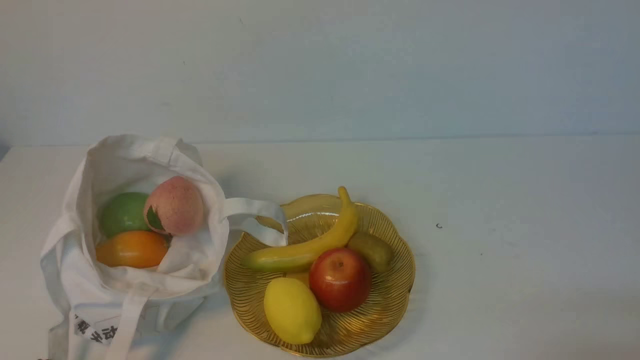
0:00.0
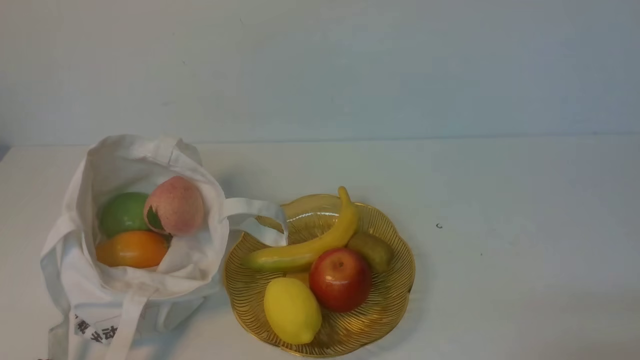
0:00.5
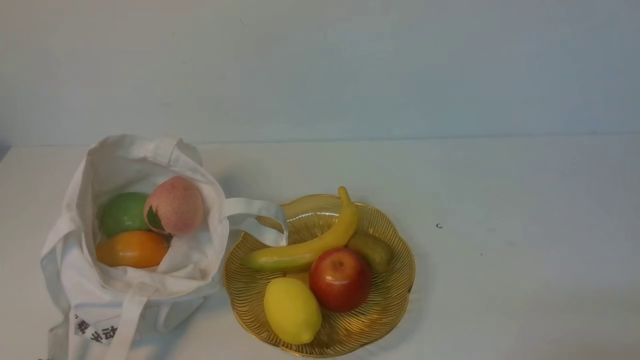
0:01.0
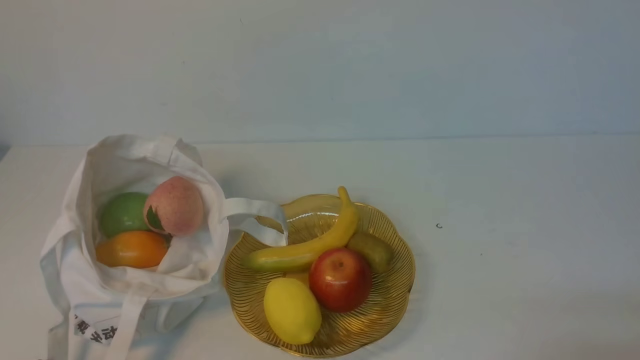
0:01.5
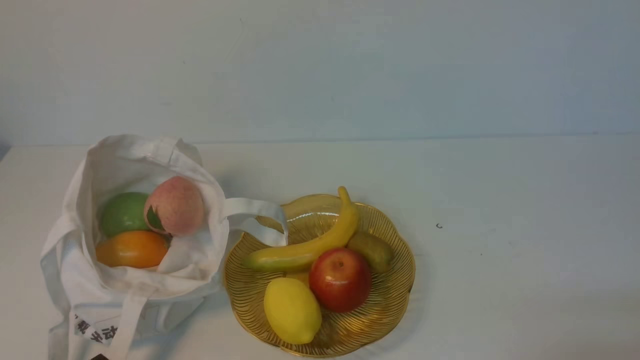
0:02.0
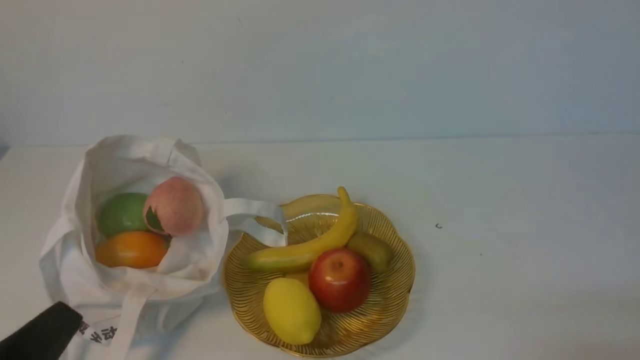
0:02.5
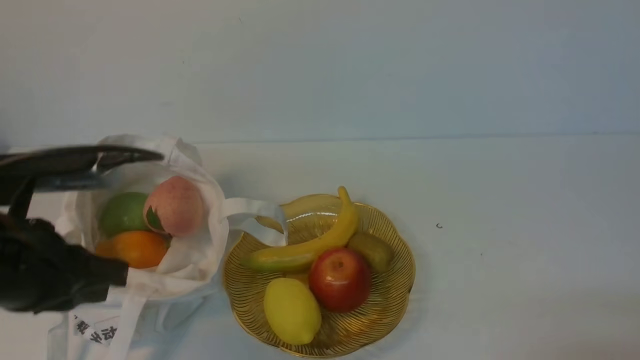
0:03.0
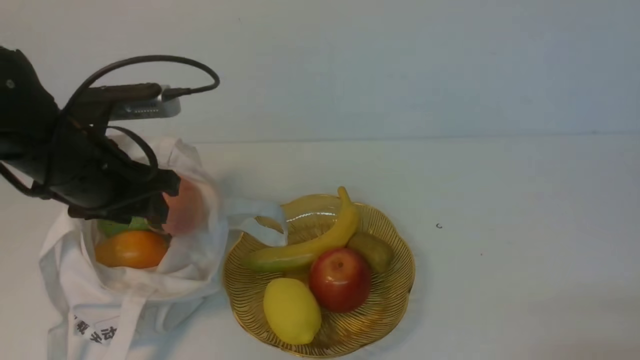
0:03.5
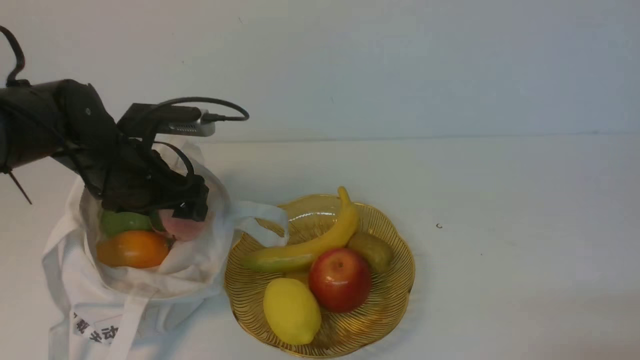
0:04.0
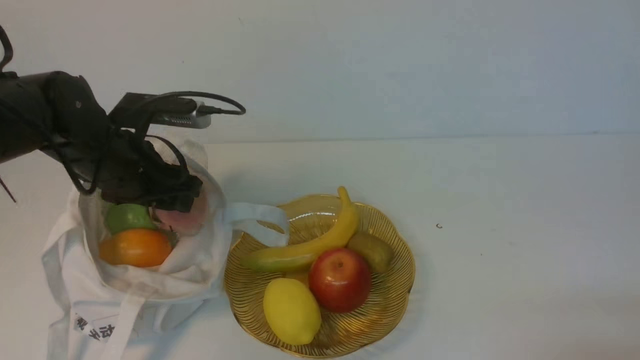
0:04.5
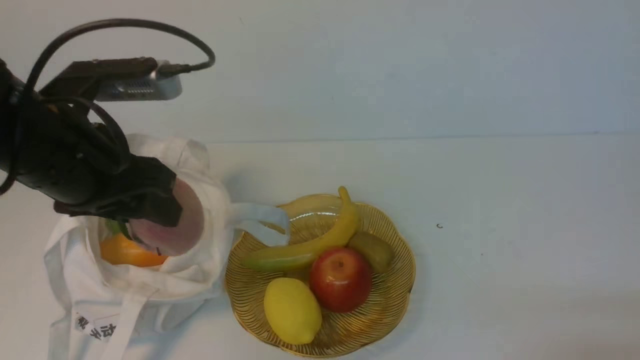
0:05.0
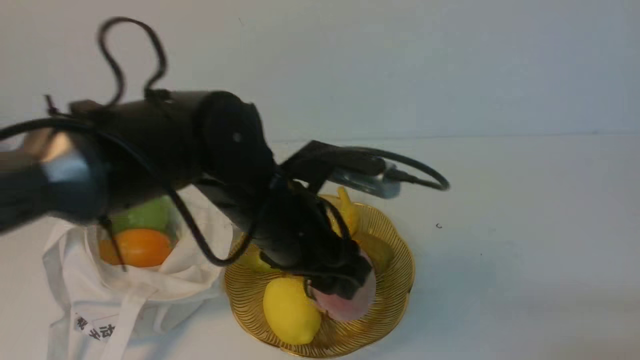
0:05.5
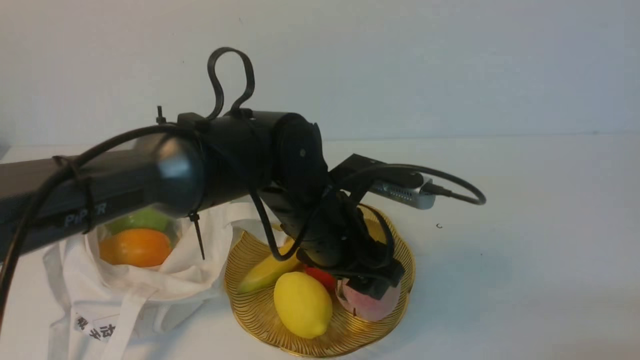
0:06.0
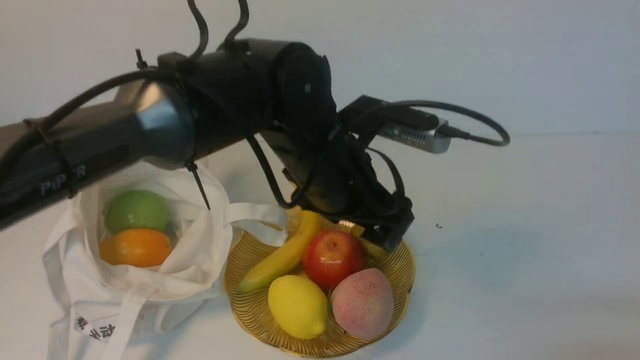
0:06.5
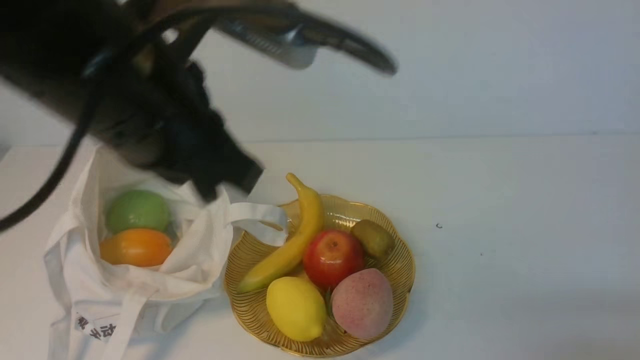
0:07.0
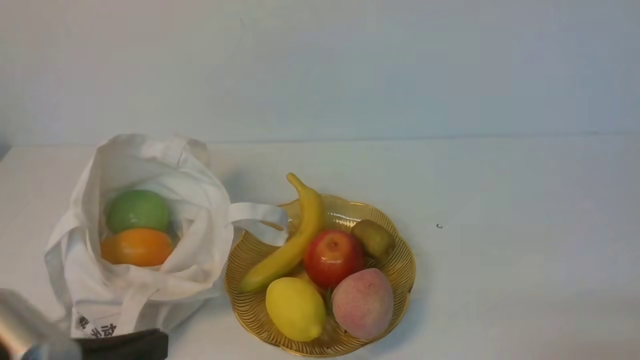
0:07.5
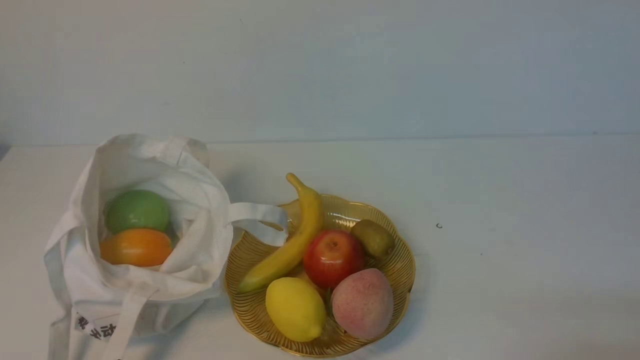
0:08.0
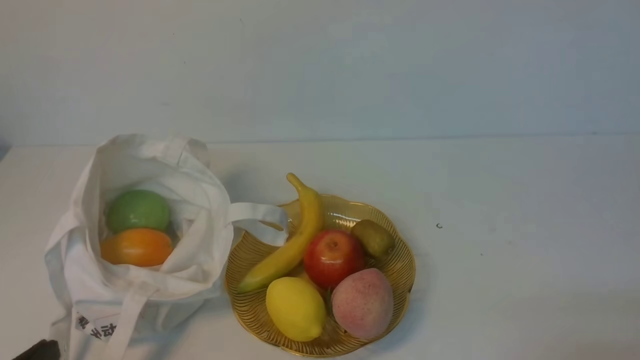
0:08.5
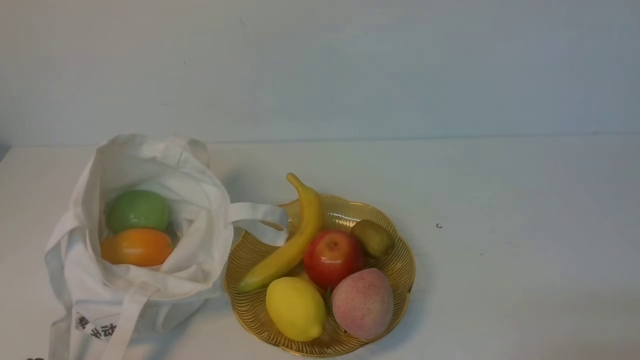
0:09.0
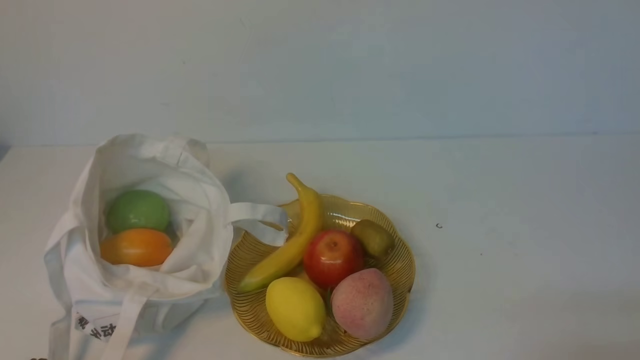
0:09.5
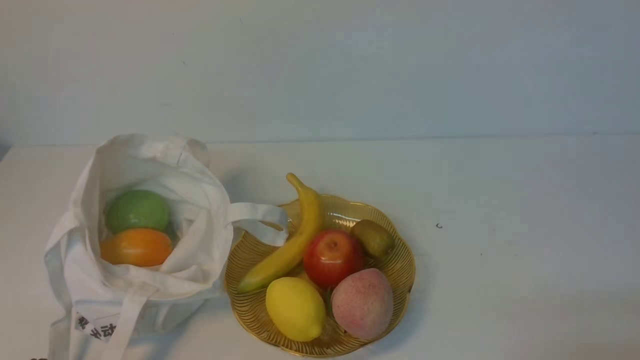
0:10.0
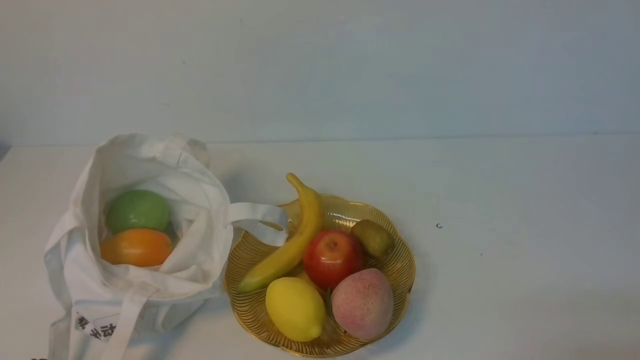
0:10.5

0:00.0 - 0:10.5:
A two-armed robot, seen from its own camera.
Step, 0:00.0 - 0:04.5: use the left arm to grab a peach from the bag.
Step, 0:05.0 - 0:06.0: use the left arm to put the peach into the empty plate on the right.
0:02.0 - 0:04.0: The left gripper shifts some 30 cm forward, and opens up.
0:04.0 - 0:06.5: The left gripper is displaced to the right by approximately 20 cm.
0:06.5 - 0:08.5: The left gripper shifts approximately 35 cm backward, to the left and downward, and closes up.

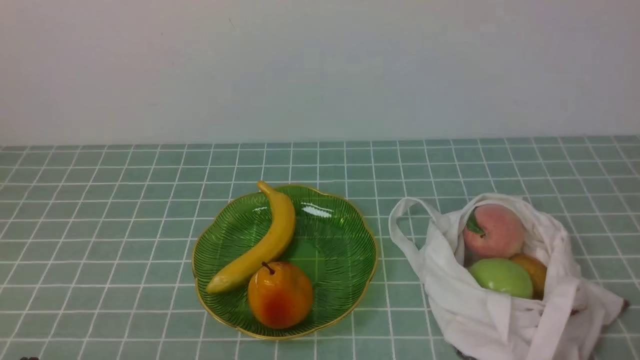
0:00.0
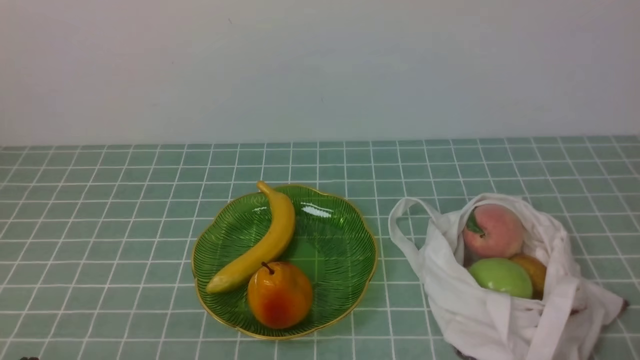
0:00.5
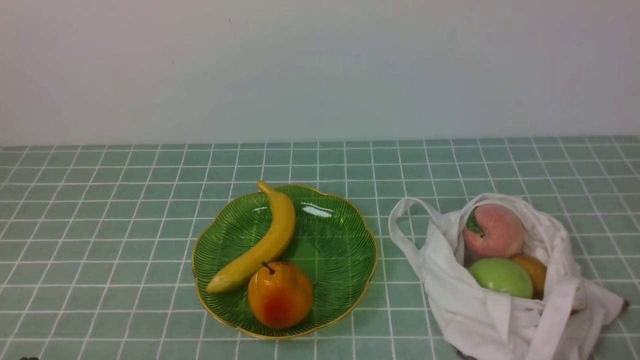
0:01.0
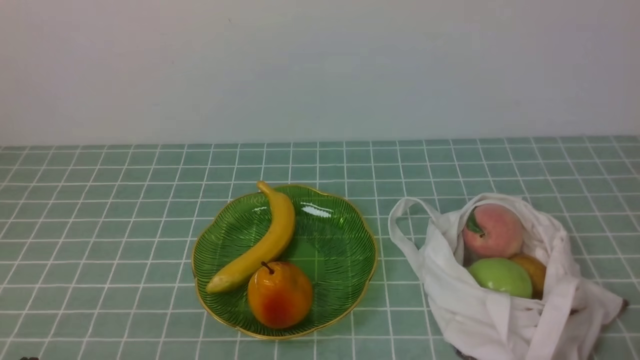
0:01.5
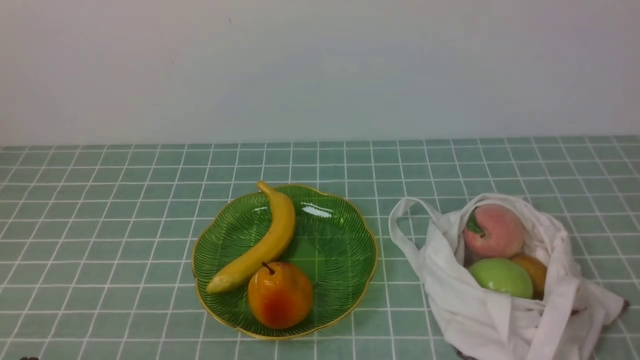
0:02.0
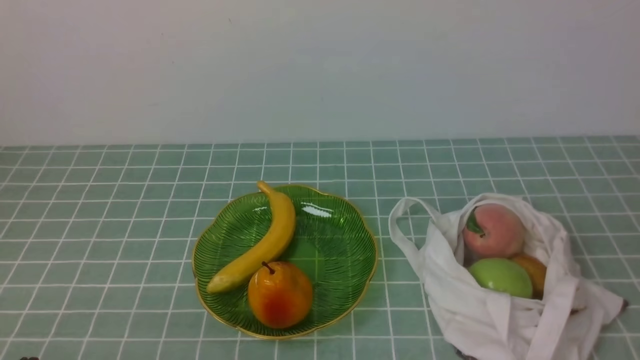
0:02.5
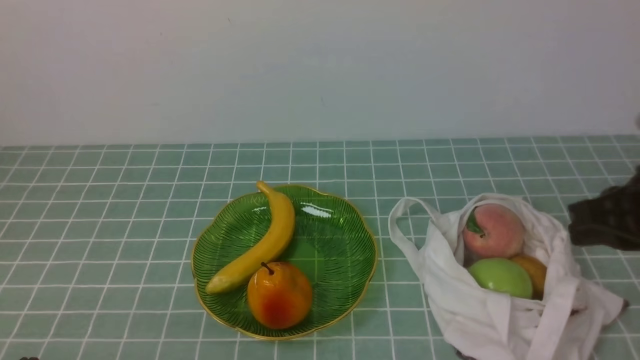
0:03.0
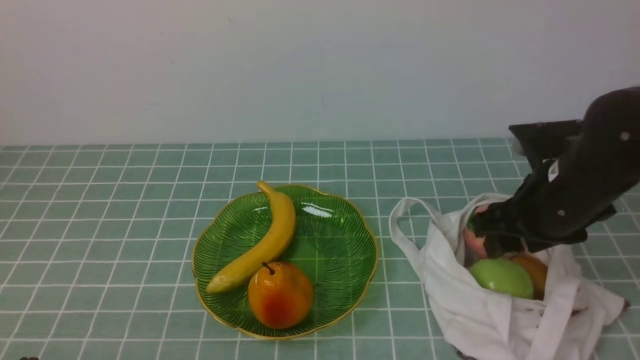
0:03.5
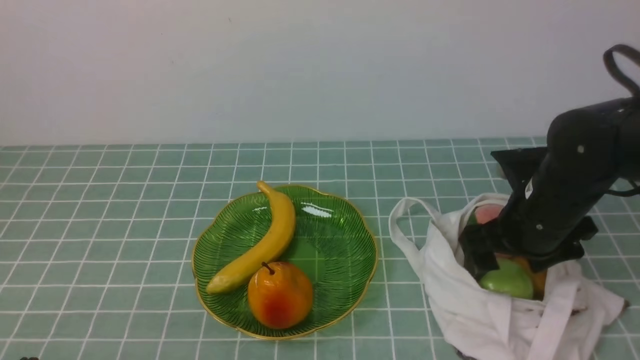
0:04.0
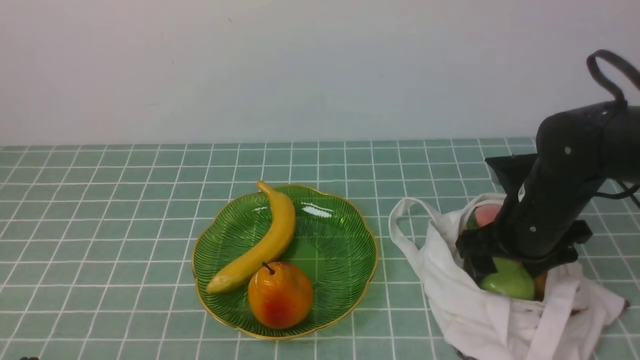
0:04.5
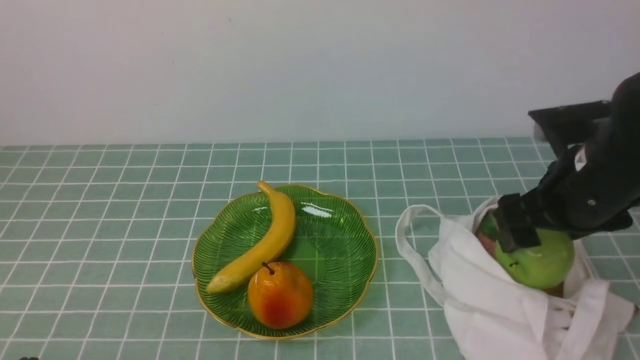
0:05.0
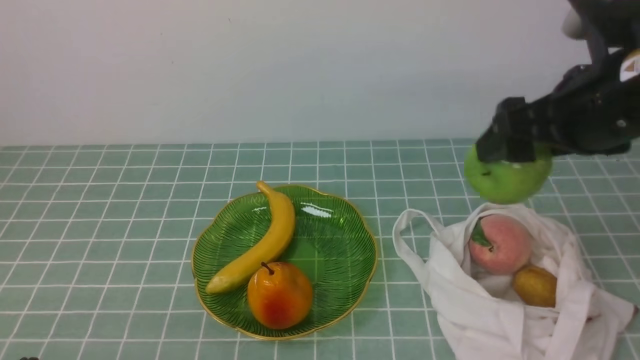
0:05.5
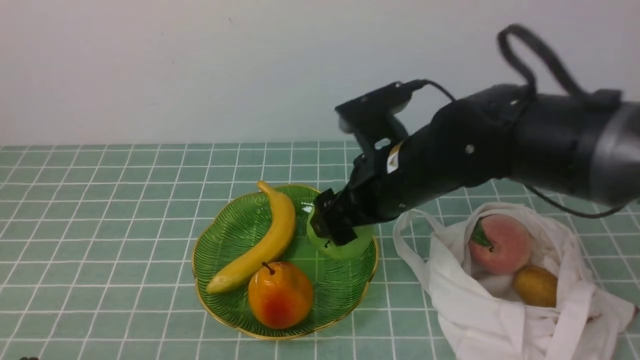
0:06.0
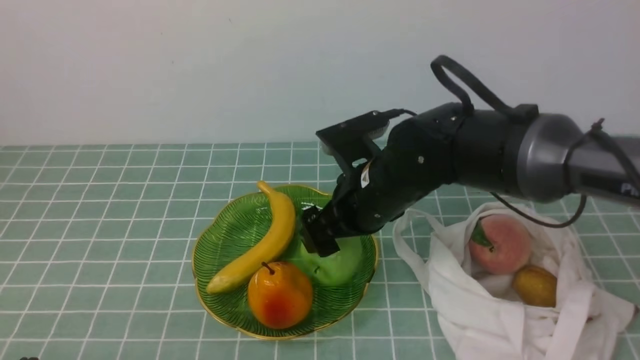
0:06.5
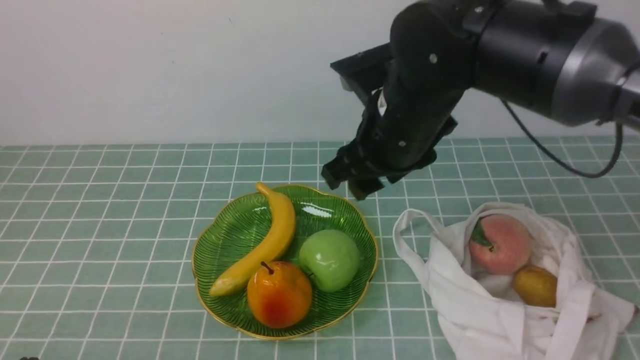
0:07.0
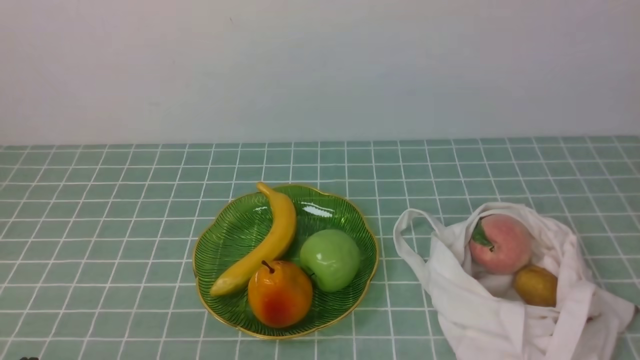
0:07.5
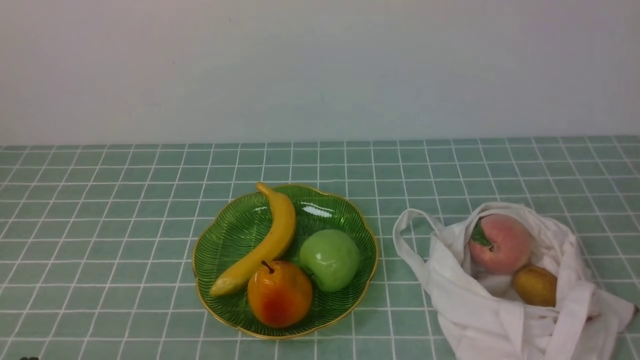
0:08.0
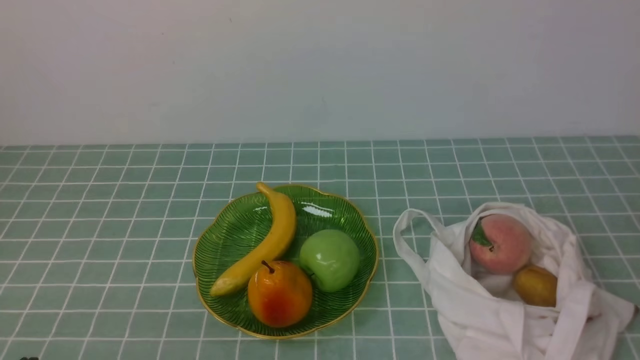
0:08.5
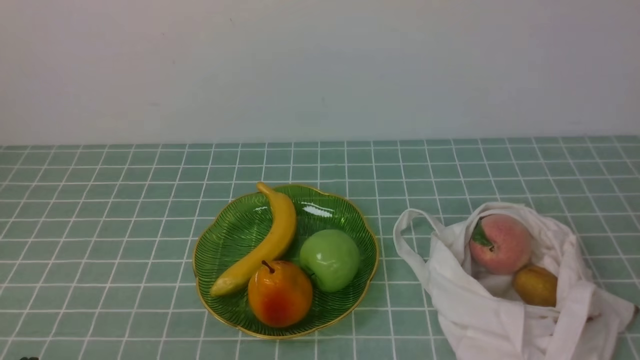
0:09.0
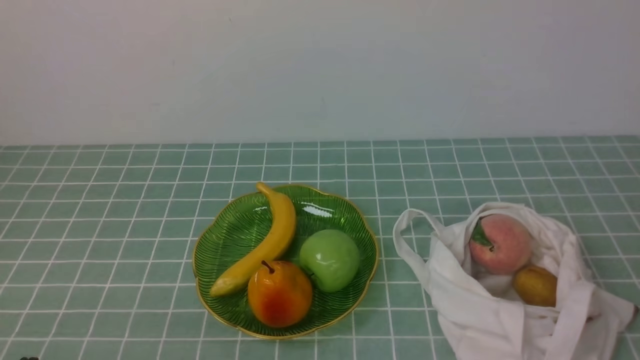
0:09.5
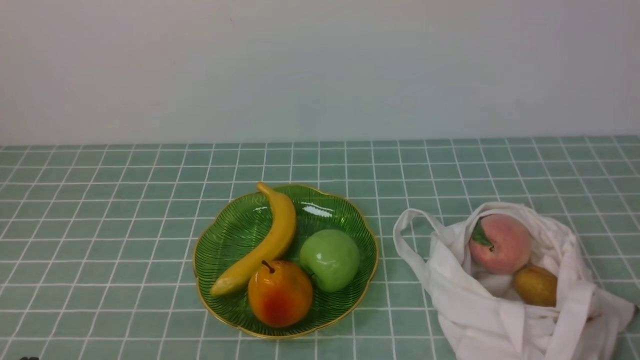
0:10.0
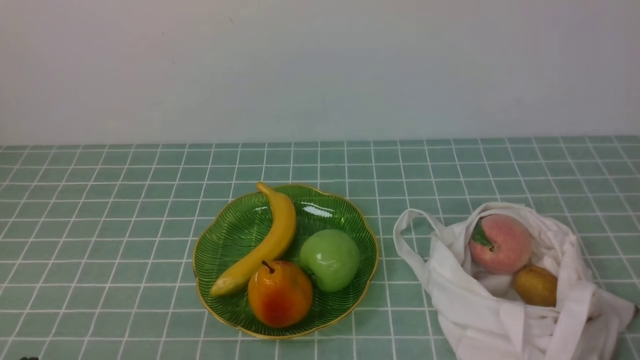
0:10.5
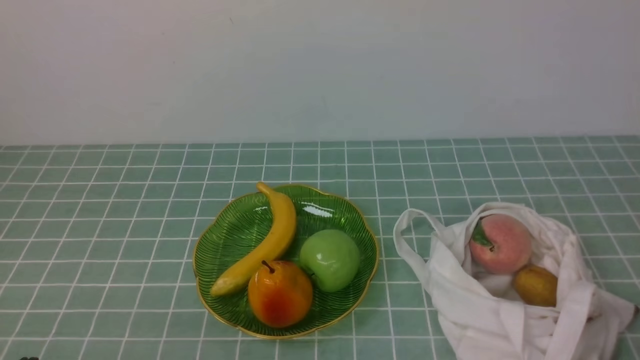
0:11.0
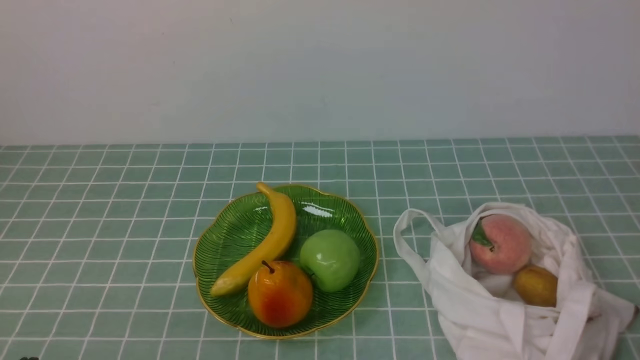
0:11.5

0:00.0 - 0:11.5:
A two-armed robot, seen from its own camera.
Step, 0:00.0 - 0:04.5: use the right arm to grab an apple from the bag.
Step, 0:05.0 - 0:06.5: use the right arm to put the apple into the empty plate on the left.
0:02.0 - 0:04.0: The right gripper moves forward, approximately 25 cm, and opens up.
0:04.0 - 0:06.0: The right gripper travels to the left by approximately 15 cm.
0:06.0 - 0:07.5: The right gripper shifts about 35 cm upward, backward and to the right, and closes.
0:07.5 - 0:09.5: The right gripper goes approximately 25 cm downward.
